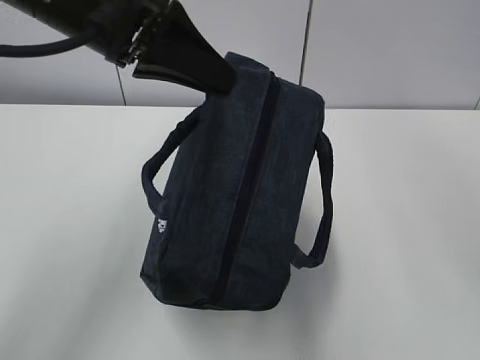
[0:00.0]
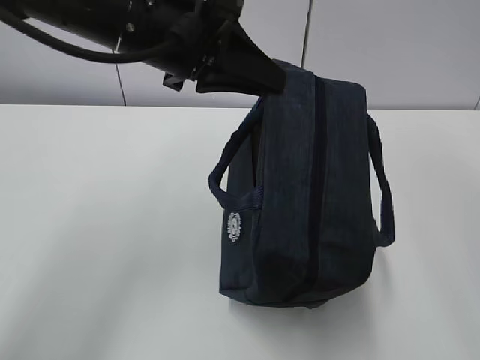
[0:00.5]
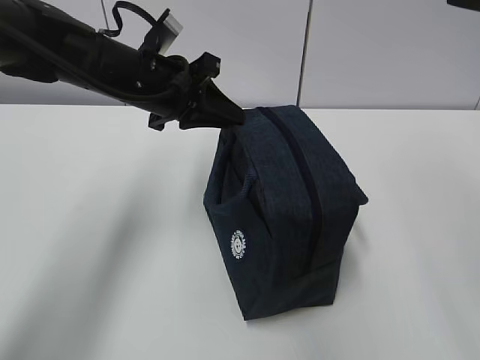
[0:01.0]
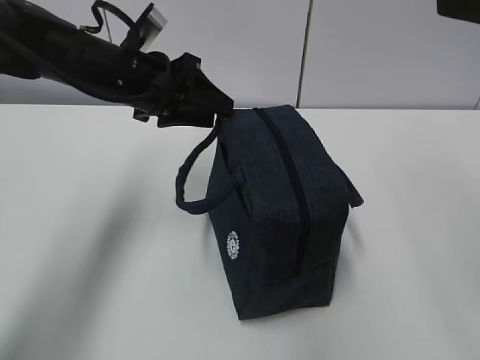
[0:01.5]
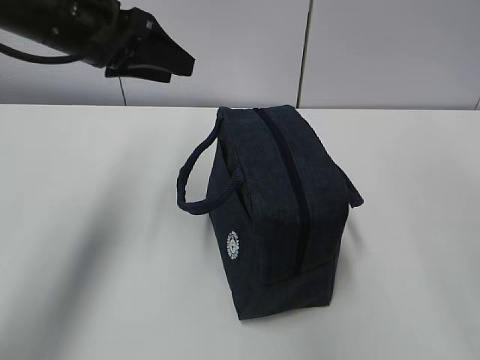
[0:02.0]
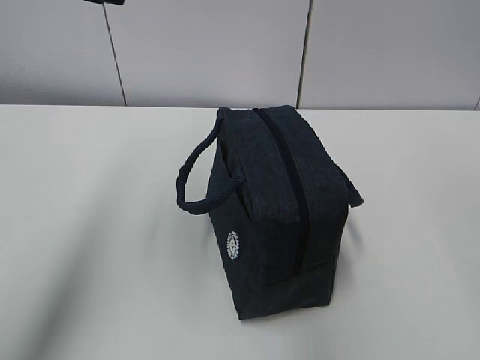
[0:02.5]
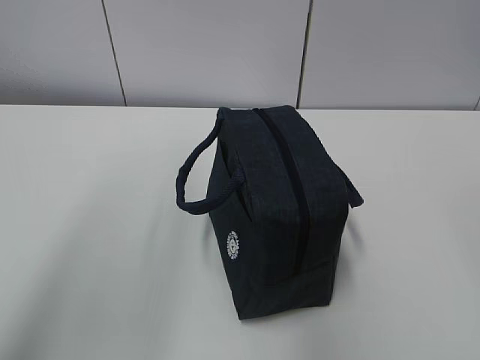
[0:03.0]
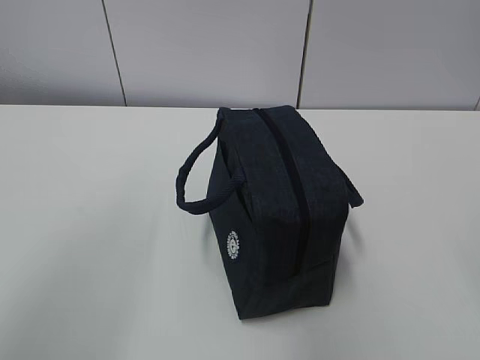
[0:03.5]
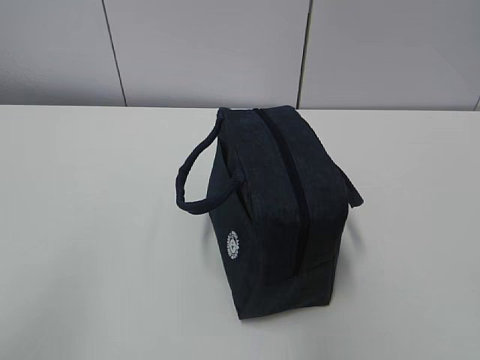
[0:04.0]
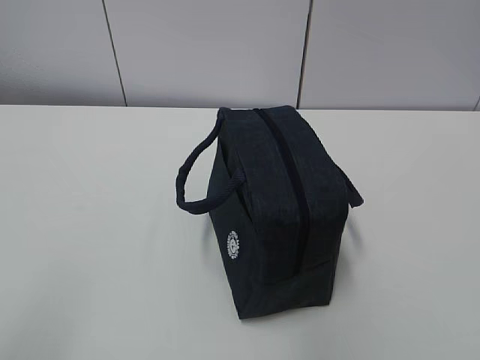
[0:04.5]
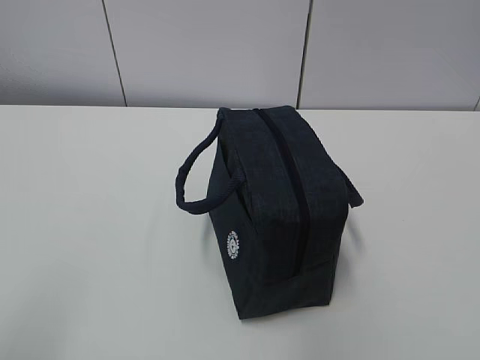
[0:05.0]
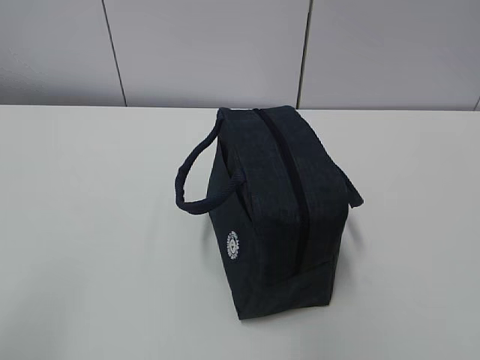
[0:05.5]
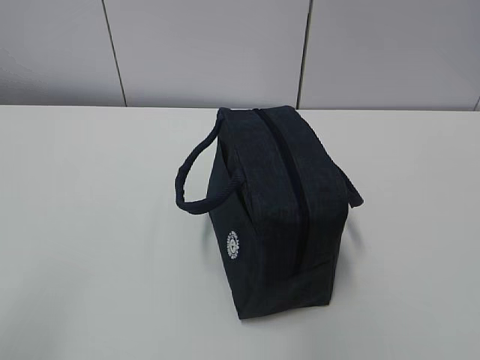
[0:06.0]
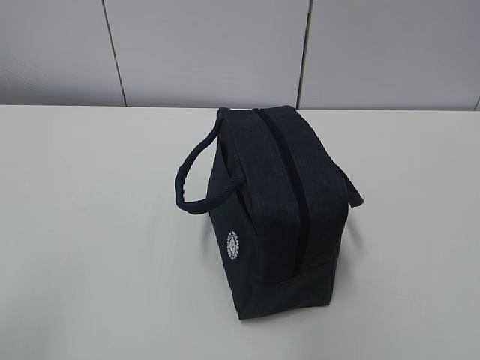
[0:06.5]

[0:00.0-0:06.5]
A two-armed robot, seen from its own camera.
0:00.0 to 0:02.0: The left gripper travels forward and to the left by roughly 10 cm, and opens up. The right gripper shifts approximately 10 cm backward and downward.
0:02.0 to 0:04.5: The right gripper heads backward and downward, covering about 20 cm. The left gripper heads backward, covering some 40 cm, and closes.
